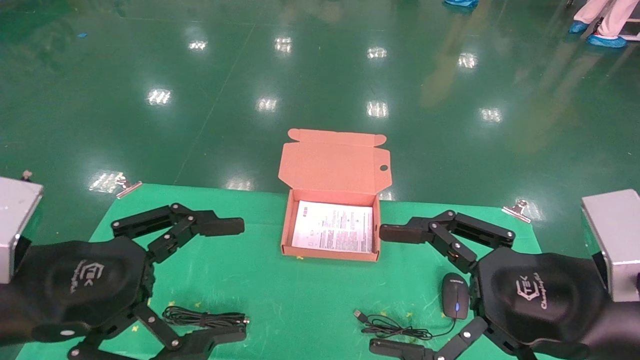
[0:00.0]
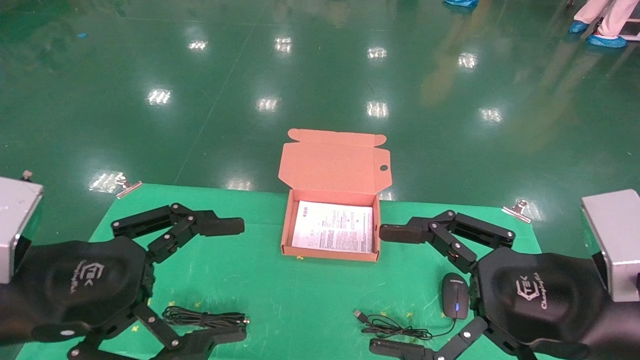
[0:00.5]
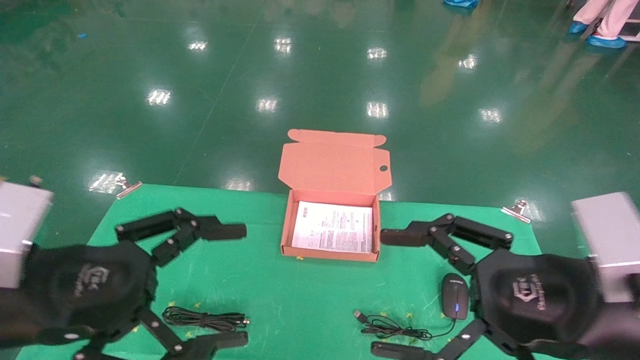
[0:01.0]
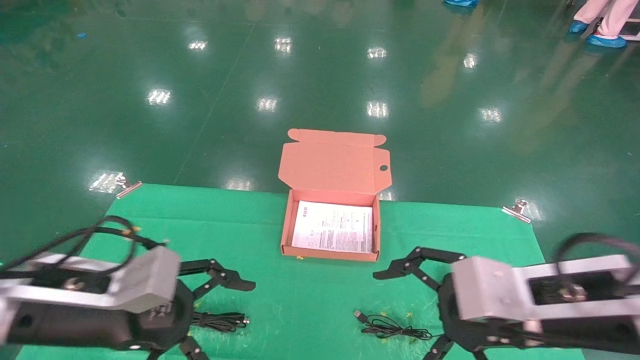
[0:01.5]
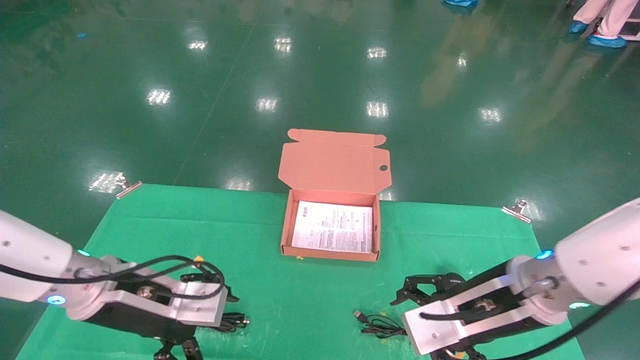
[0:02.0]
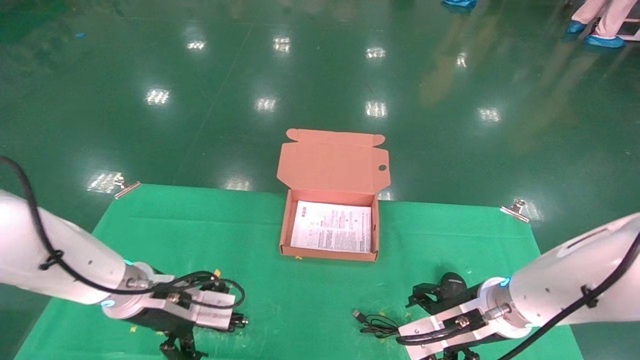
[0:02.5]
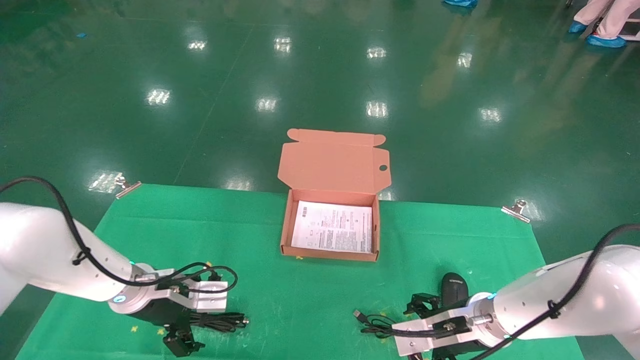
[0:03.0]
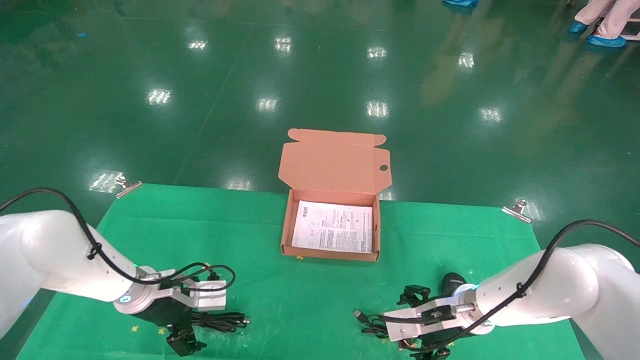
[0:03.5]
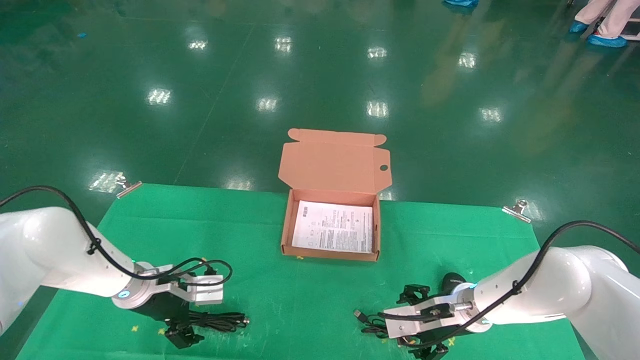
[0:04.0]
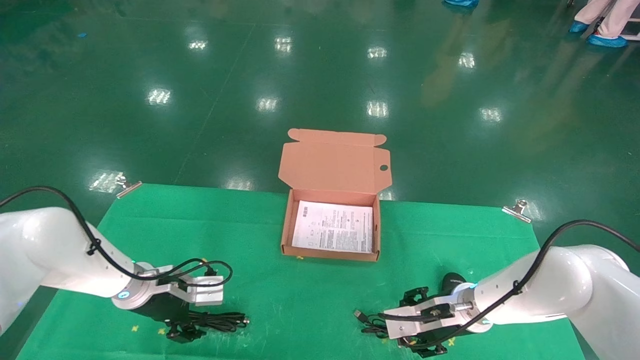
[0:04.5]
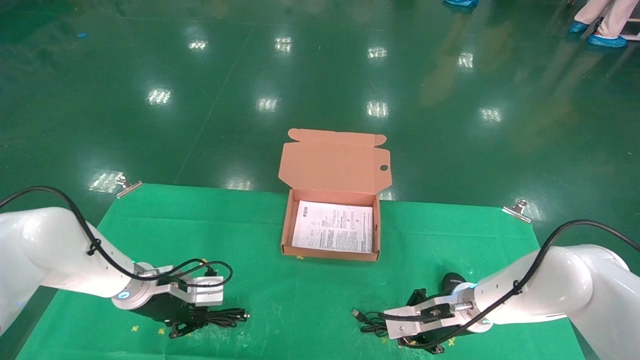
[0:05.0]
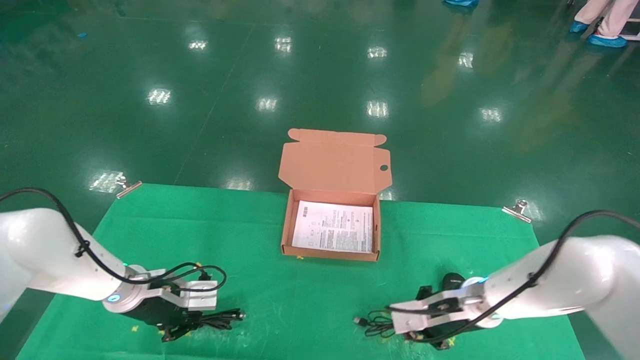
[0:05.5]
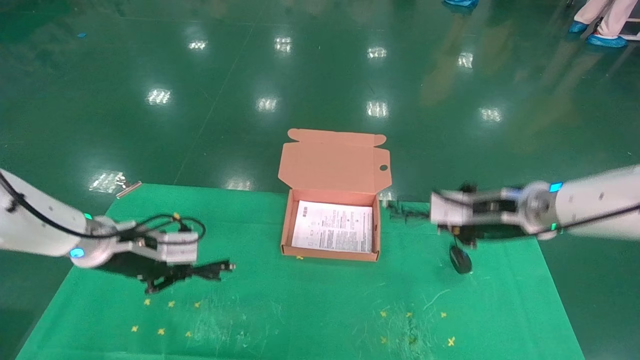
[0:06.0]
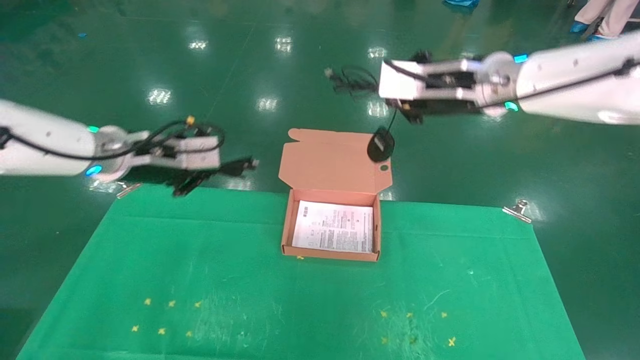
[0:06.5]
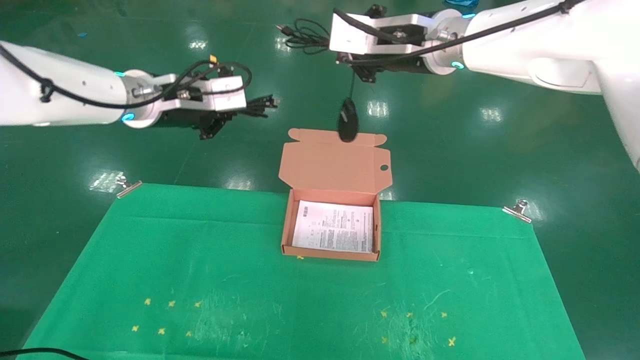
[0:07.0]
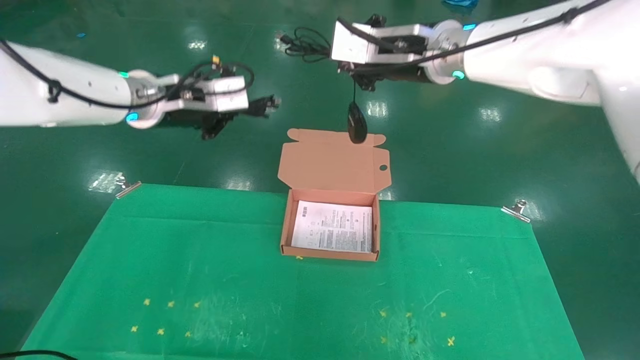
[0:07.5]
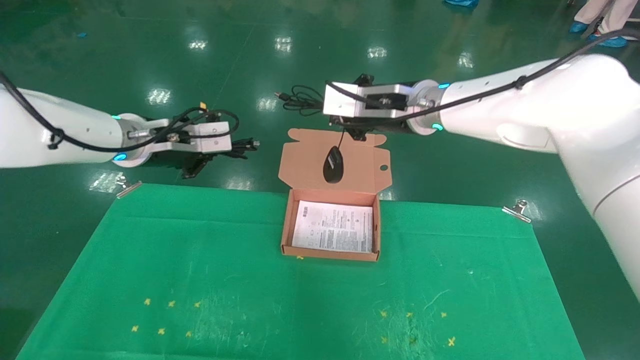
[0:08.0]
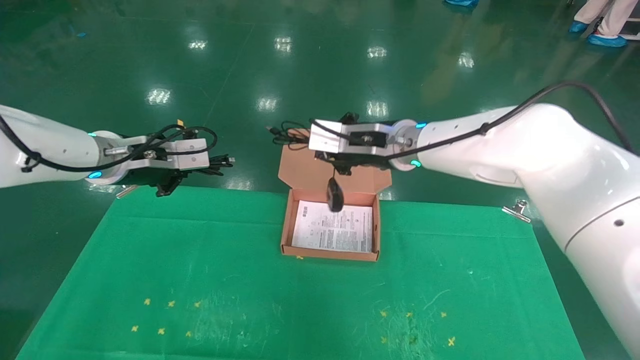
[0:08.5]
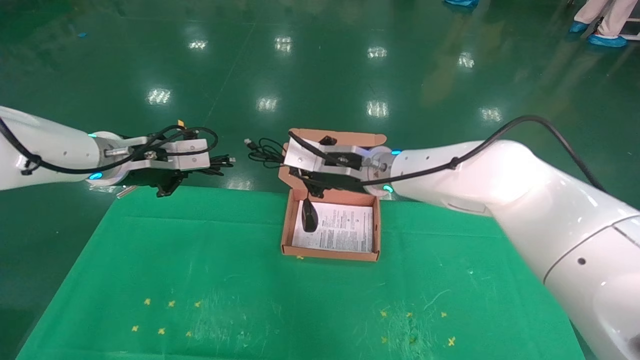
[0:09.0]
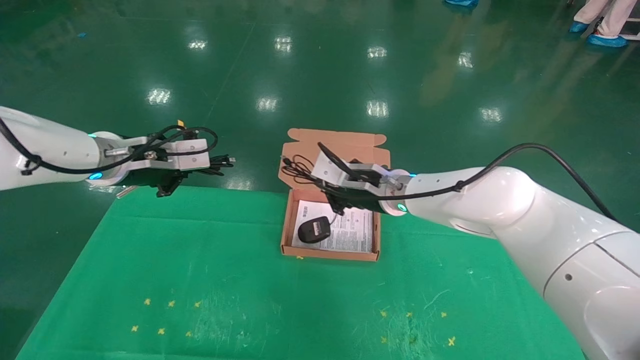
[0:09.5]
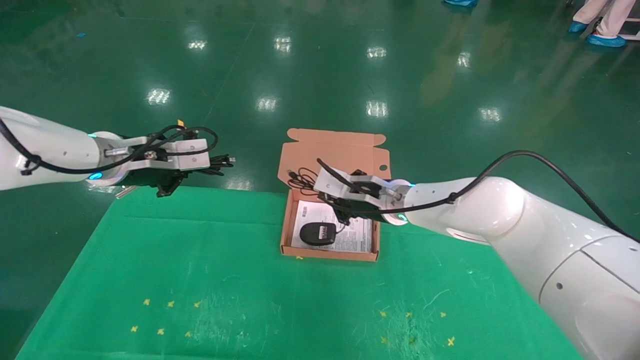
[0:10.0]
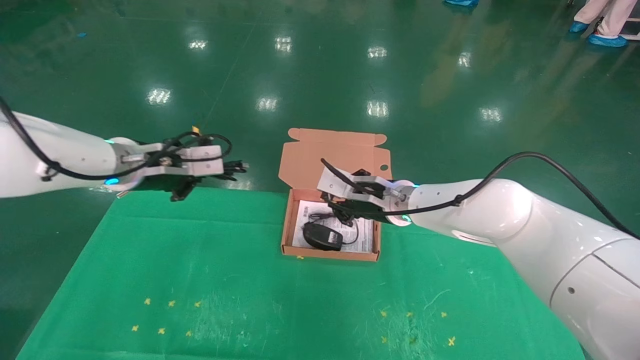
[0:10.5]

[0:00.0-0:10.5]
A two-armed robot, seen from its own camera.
Task of the whole recording: grasp data cable left put into box grasp mouse right put into box.
Step, 0:01.0 to 0:06.0: Grab and pick up both the mouse and power cord from the accessory packaging area at the same time.
0:00.0 to 0:02.0: Both grippers travel together forward and downward, some 15 cm.
0:02.0 to 0:04.0: The right gripper shifts roughly 20 cm downward and forward. The left gripper is displaced forward and downward by roughly 15 cm.
0:04.0 to 0:06.5: The right gripper shifts some 30 cm upward, and closes; the left gripper shifts roughly 20 cm upward, and closes its fingers.
0:06.5 to 0:08.5: The right gripper heads to the left, covering about 10 cm, while the left gripper goes upward and returns, roughly 10 cm each way.
0:08.5 to 0:10.5: The right gripper goes some 10 cm downward.

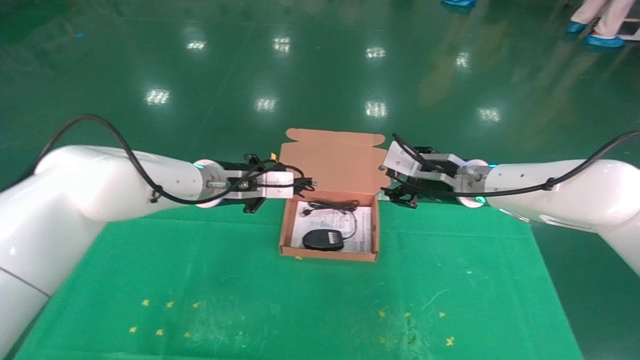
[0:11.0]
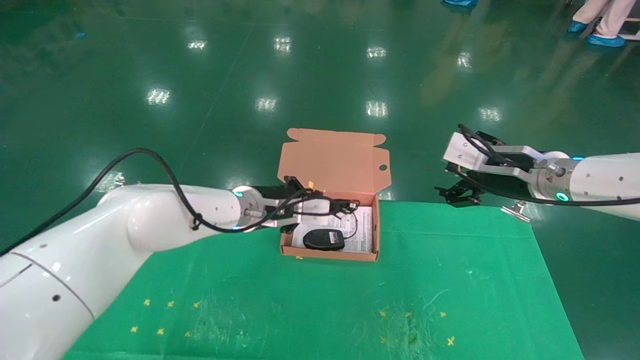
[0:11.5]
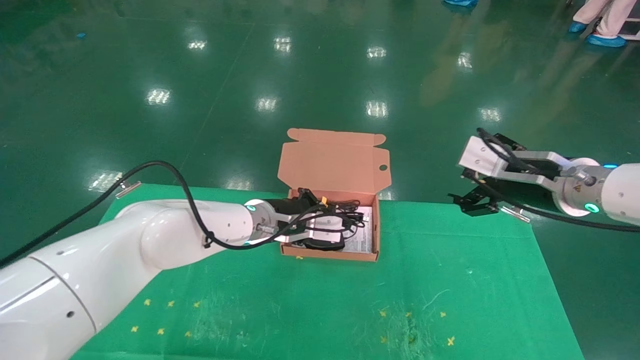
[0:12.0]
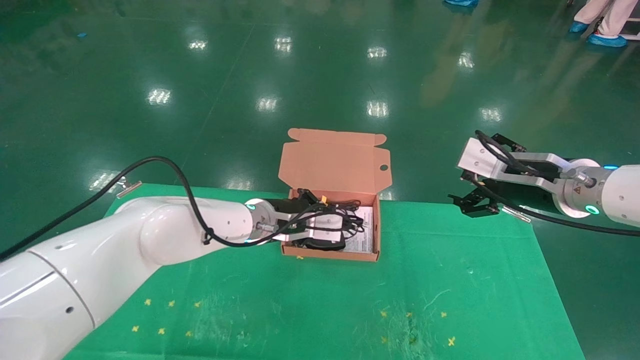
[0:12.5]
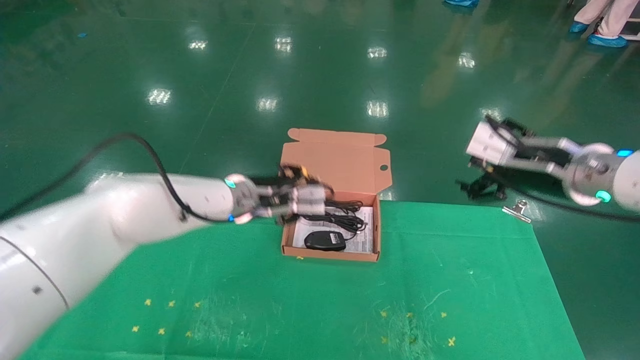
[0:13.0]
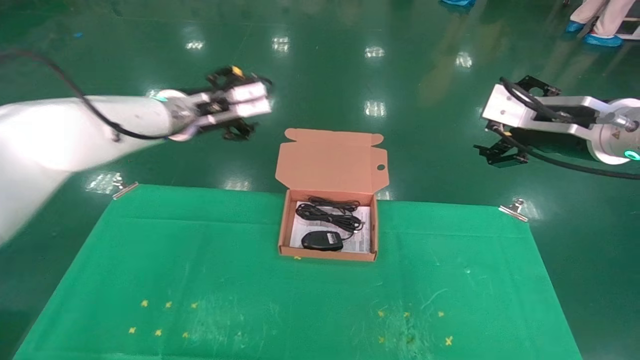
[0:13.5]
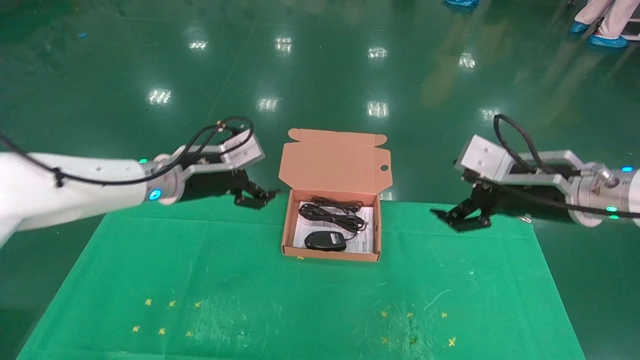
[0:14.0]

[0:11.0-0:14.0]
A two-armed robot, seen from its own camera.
Task of the whole recording: grasp data cable left put into box grasp mouse right put into box.
0:11.0 to 0:12.5: The right gripper moves to the right and backward, about 15 cm, and opens; the left gripper heads to the right and downward, covering approximately 10 cm.
0:12.5 to 0:14.0: The left gripper heads to the left and upward, covering about 15 cm, and opens its fingers.
